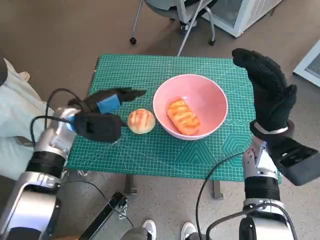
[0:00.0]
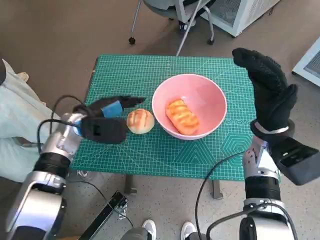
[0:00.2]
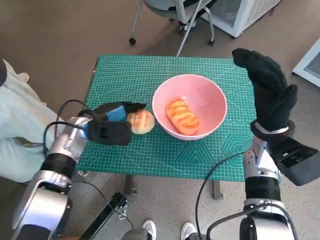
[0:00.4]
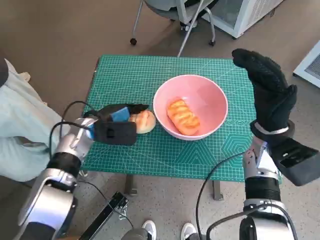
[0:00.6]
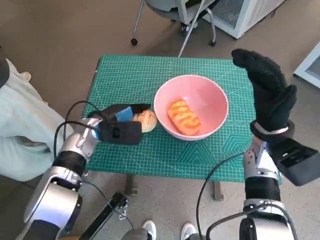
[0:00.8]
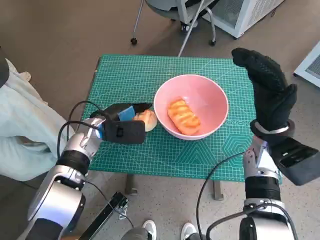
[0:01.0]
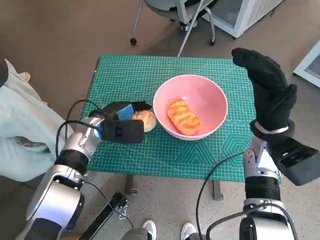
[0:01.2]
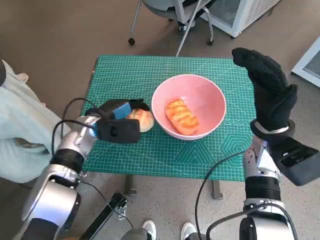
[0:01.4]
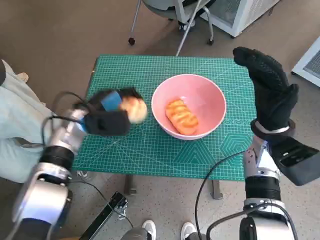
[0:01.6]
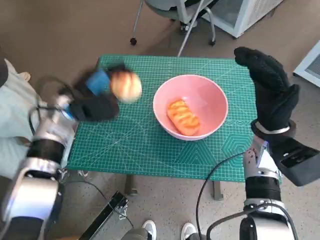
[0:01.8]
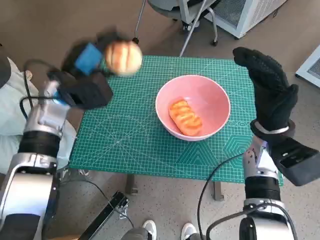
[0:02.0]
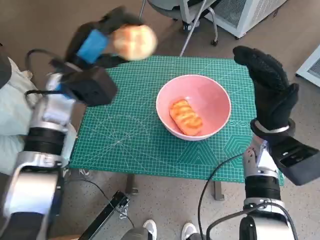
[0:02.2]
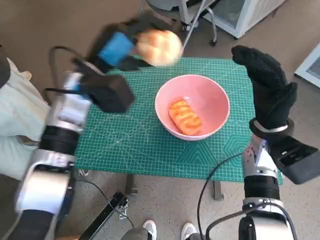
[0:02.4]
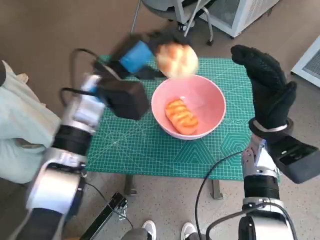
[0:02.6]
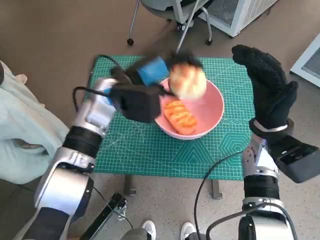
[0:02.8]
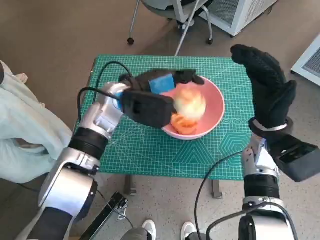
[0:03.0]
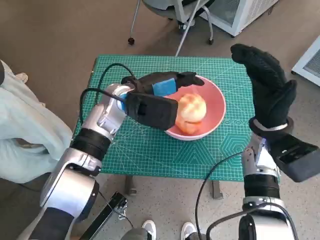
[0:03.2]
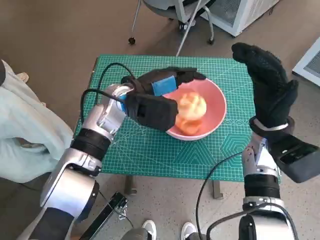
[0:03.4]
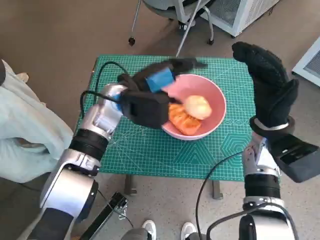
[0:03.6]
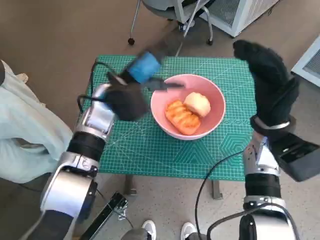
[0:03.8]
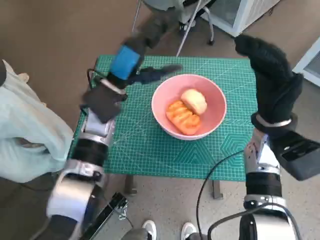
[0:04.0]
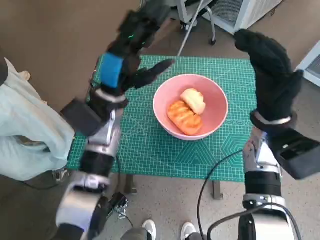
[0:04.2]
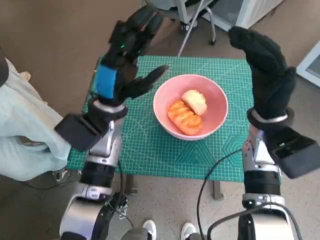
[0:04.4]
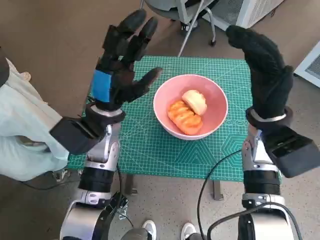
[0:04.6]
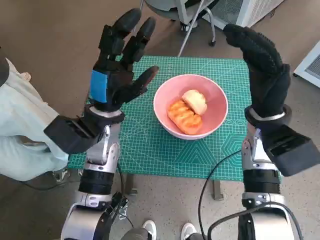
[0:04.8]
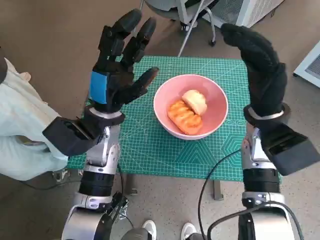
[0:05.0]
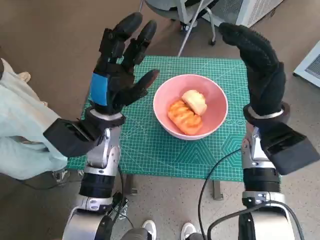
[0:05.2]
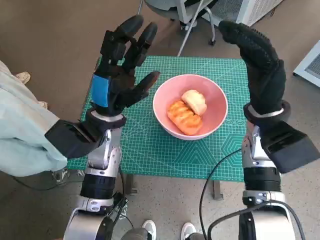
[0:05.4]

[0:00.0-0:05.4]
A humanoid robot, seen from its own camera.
Task of the whole recording: Push the bowl to the center of the table and put the bread into the bowl.
Step, 0:01.4 to 0:03.0: Place the round bread in pink bowl with left hand.
0:00.0 to 0:01.4: The left hand changes place by approximately 5 cm.
0:01.4 to 0:02.8: The left hand heads upward and to the right, covering about 15 cm.
0:04.0 to 0:05.4: The left hand ends up roughly 5 cm from where it was.
